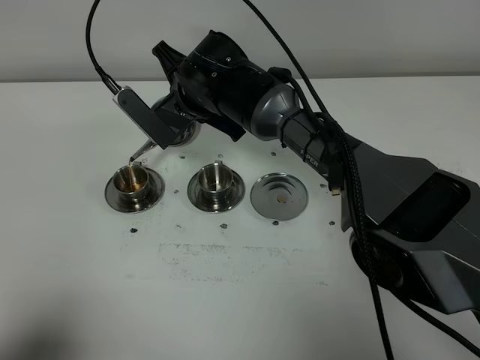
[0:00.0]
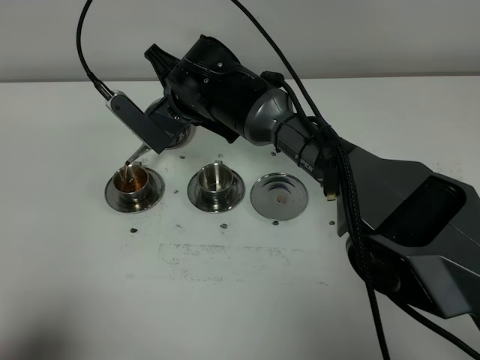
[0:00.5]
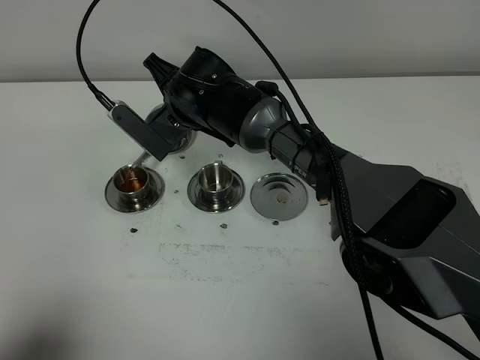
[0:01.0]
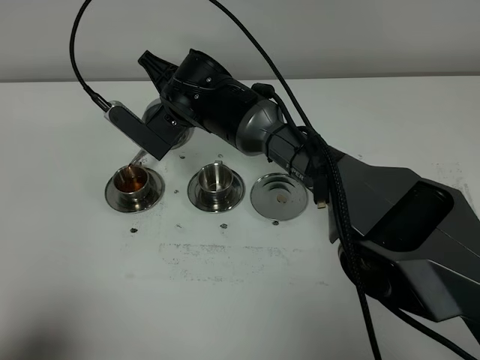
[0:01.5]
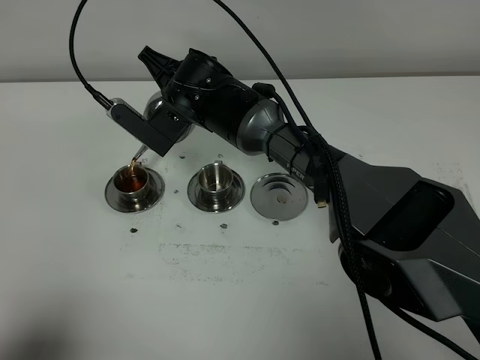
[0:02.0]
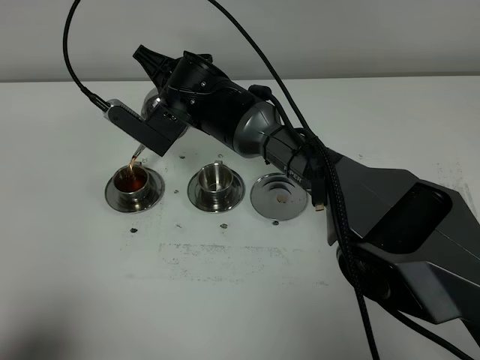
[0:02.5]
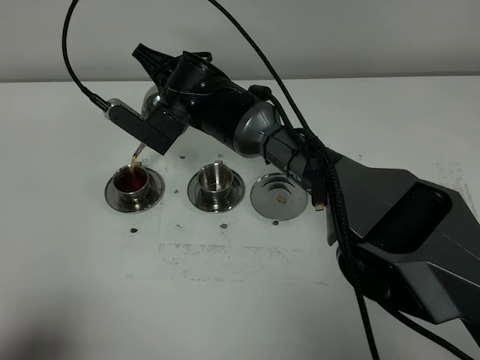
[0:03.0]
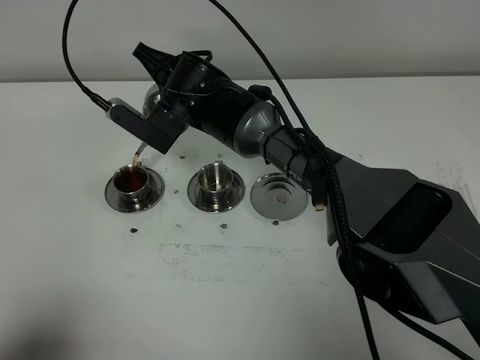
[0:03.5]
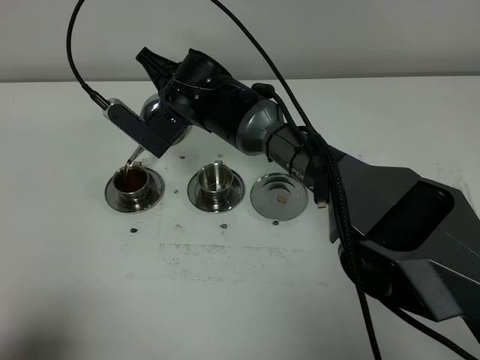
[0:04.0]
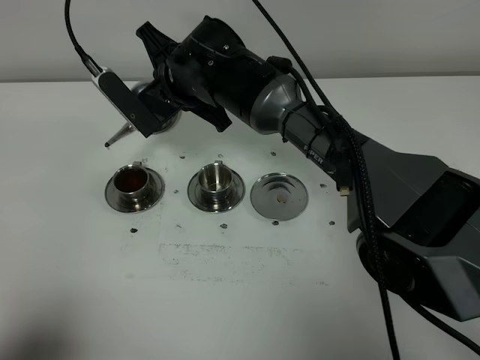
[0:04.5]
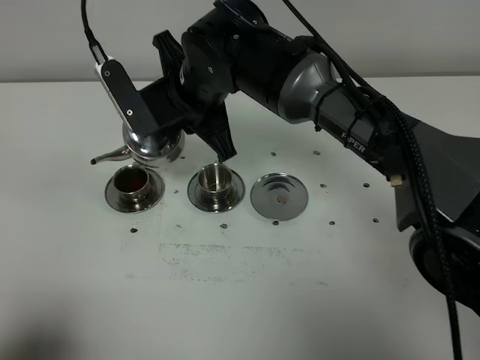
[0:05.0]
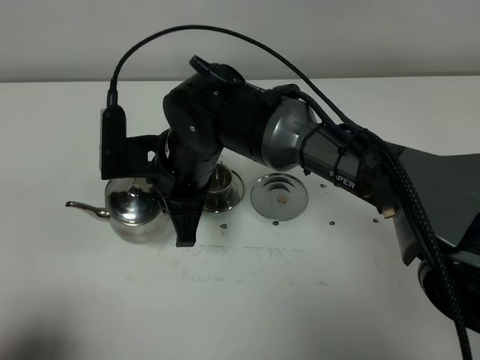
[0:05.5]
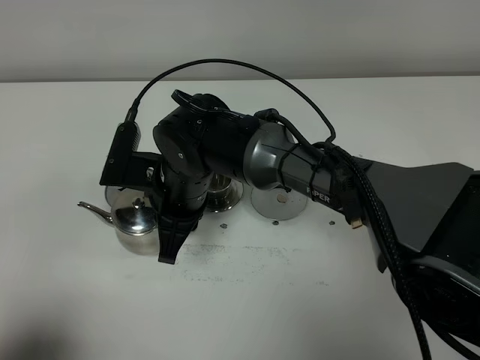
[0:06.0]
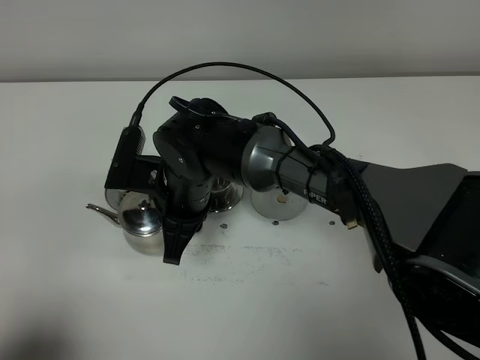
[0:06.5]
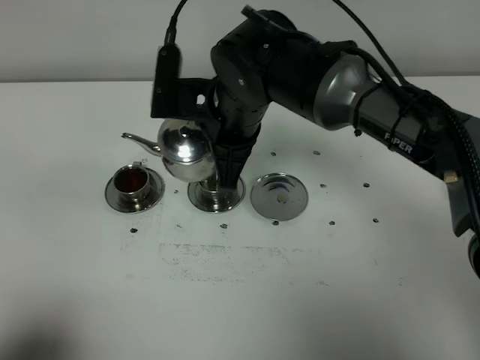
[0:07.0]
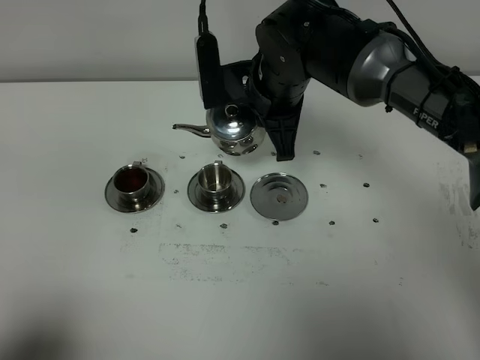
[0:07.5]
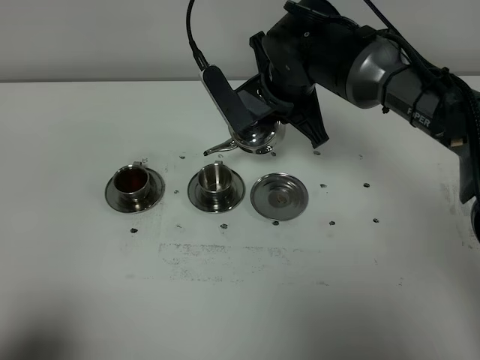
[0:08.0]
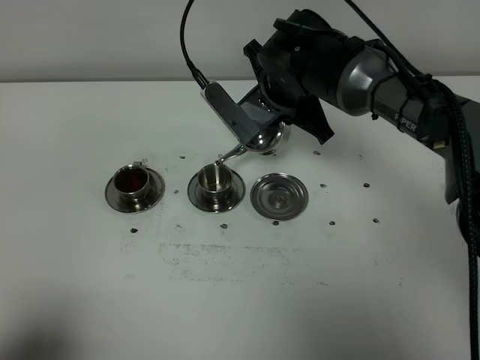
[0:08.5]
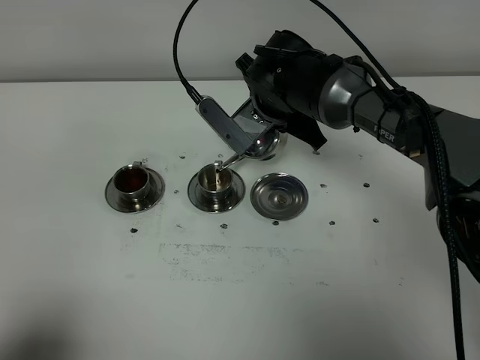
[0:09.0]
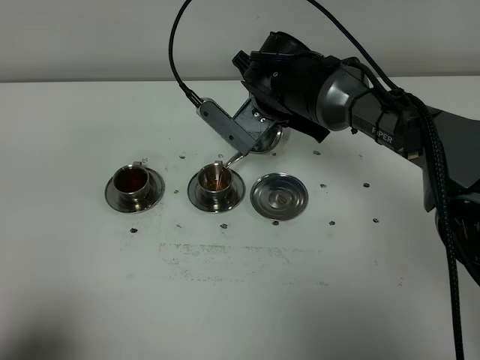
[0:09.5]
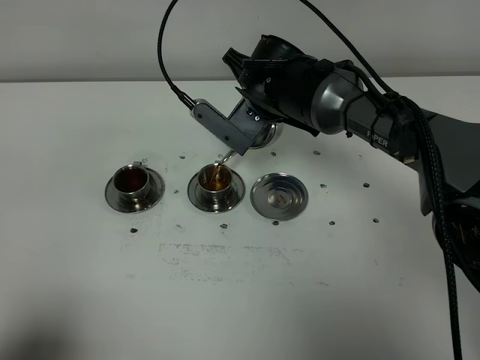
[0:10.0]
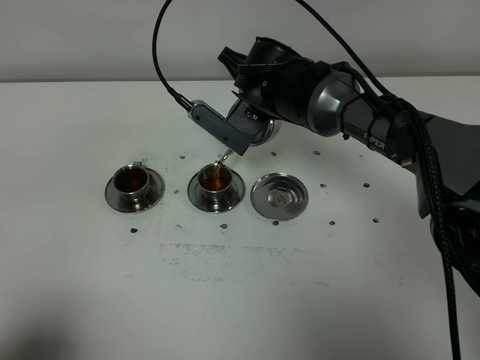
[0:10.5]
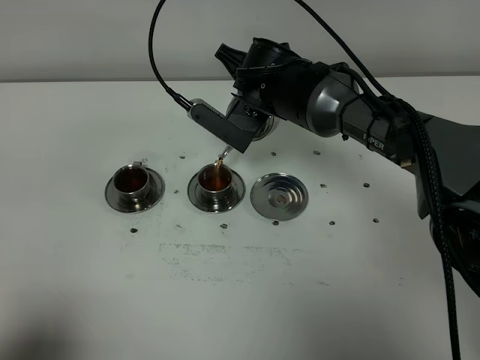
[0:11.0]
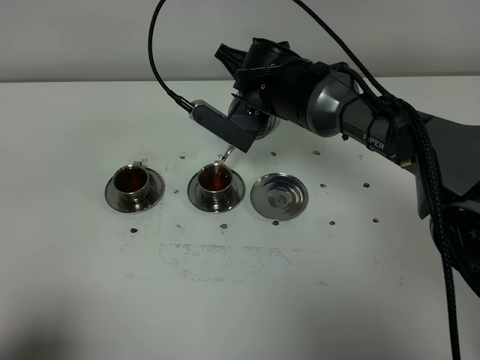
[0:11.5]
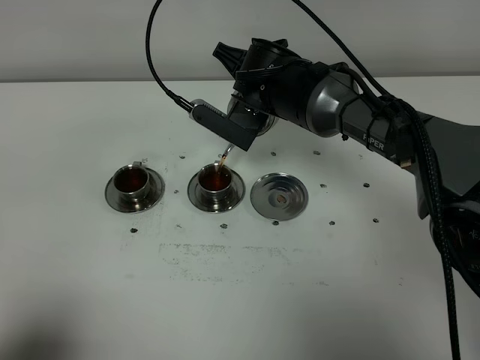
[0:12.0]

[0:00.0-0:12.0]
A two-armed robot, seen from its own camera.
Task of the whole recording: grasp the stainless steel teapot and pour the tea into the two stainless steel teacups one by one, put the stainless steel teapot back in its original place.
0:00.0 to 0:04.0: The grippers make only small movements.
0:04.0 to 0:06.0: The right gripper goes approximately 10 cm backward.
0:06.0 to 0:08.0: The right gripper heads to the right, forward and upward, covering roughly 15 cm.
0:10.0 to 0:12.0: The grippers make only small movements.

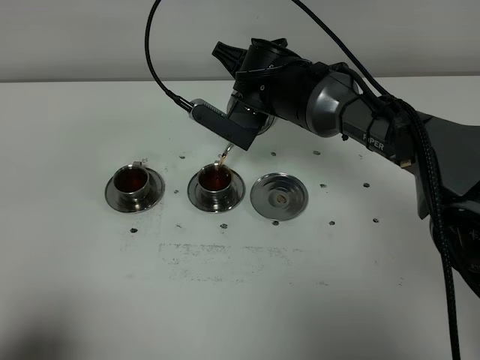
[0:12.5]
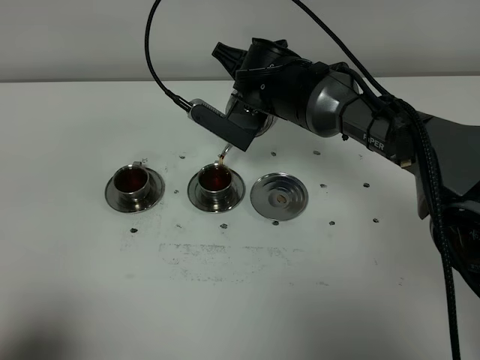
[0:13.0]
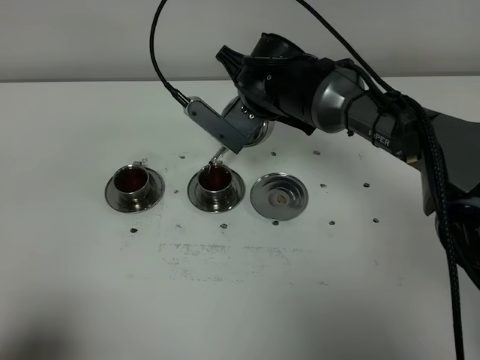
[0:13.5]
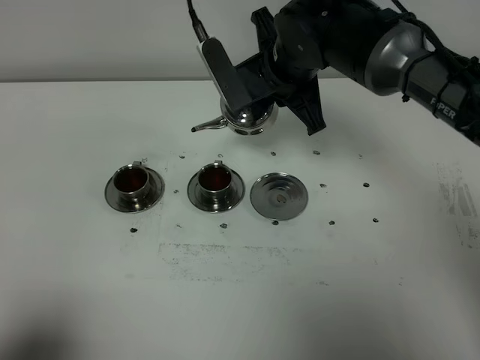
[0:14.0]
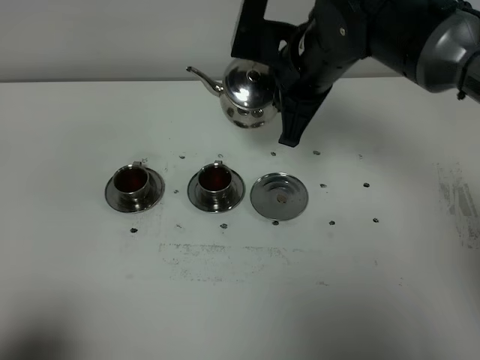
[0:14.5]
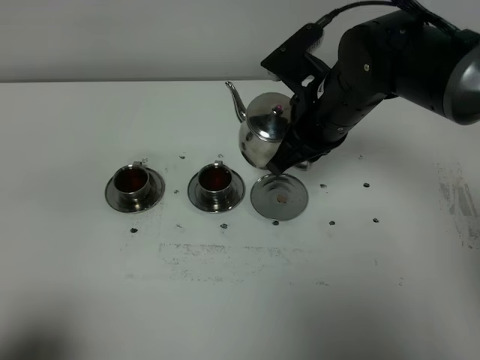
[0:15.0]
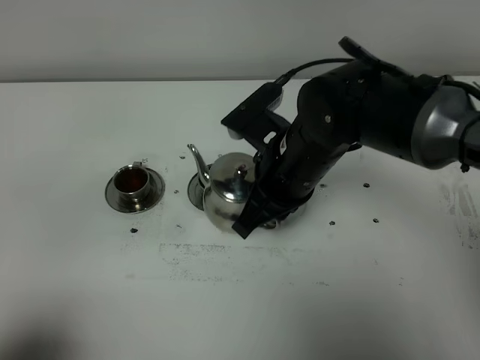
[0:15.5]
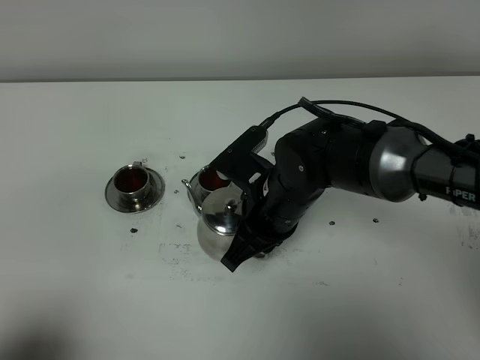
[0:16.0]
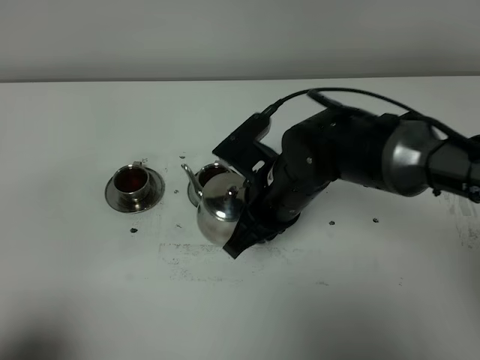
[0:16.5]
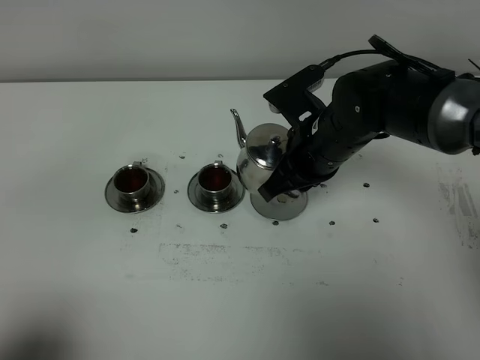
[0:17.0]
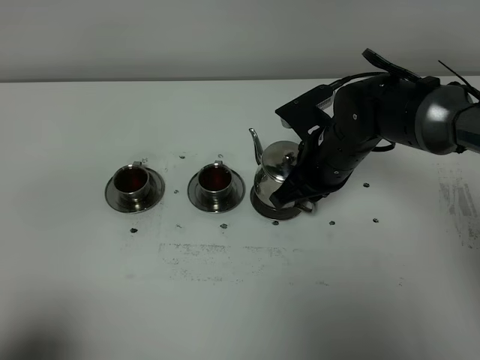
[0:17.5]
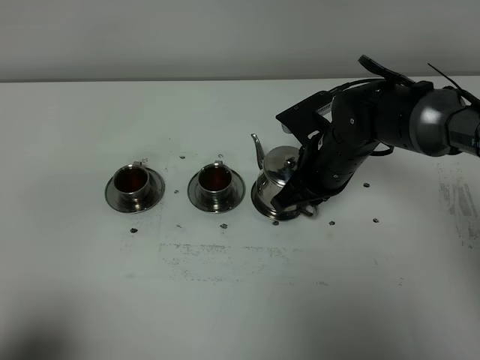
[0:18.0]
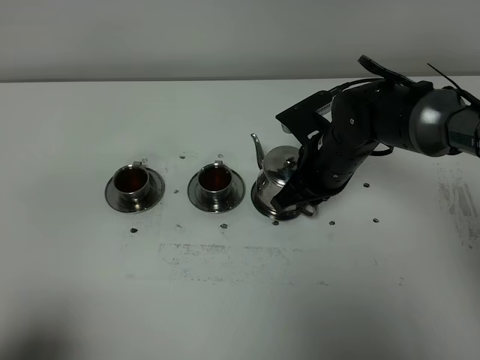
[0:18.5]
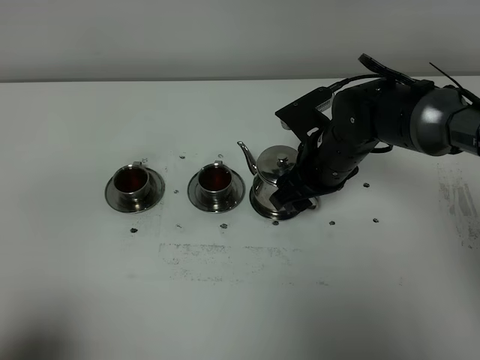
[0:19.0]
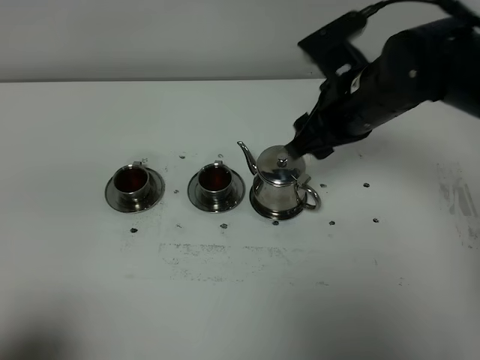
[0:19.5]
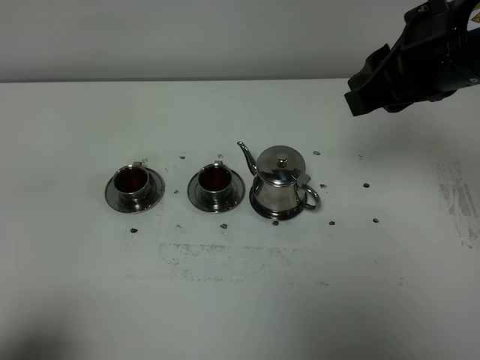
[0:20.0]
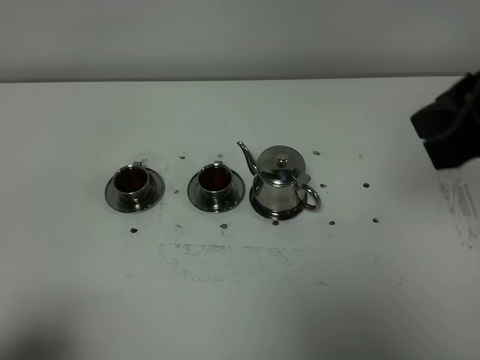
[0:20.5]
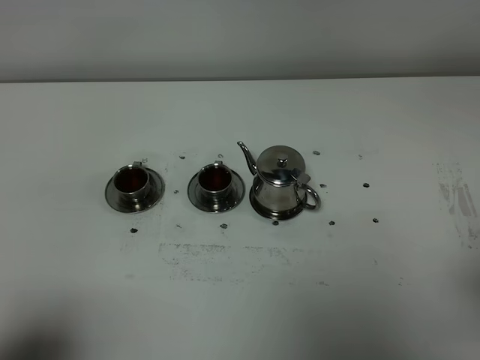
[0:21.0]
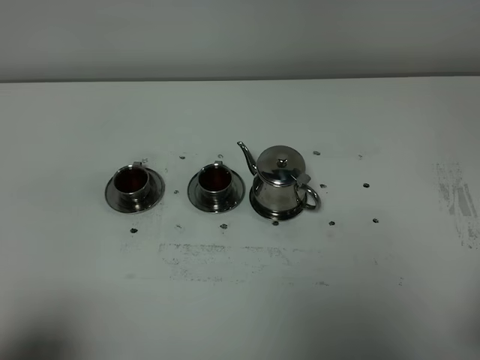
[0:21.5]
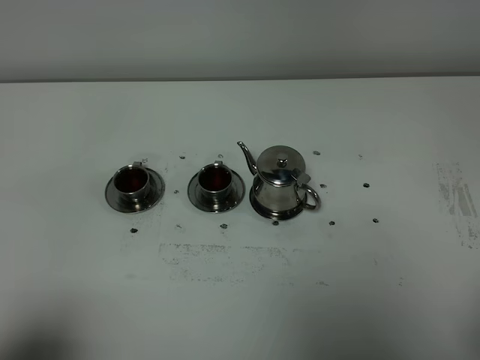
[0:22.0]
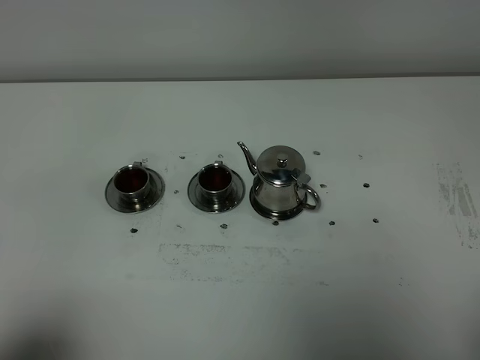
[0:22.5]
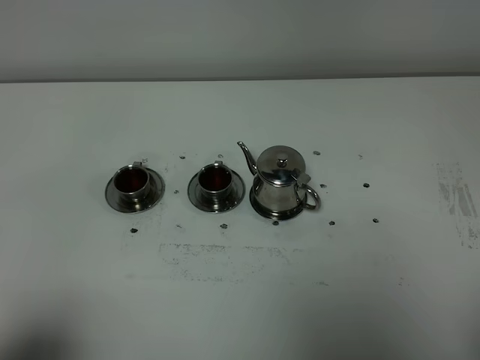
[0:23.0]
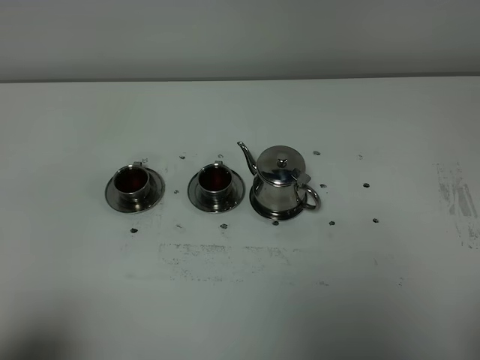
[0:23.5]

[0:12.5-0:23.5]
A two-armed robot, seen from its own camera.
Task of the whole recording: grasp the stainless steel teapot and pour the tea into the two stainless steel teacups one by one, put the stainless steel teapot back in its original place.
0:12.5 to 0:14.5: The right gripper moves upward, to the right and backward, roughly 10 cm.
0:14.5 to 0:16.0: The right gripper shifts some 15 cm downward, backward and to the left.
0:16.0 to 0:18.0: The right gripper heads to the right and forward, covering some 10 cm.
0:18.0 to 0:20.0: The right gripper travels upward and backward by about 25 cm, and opens up.
0:20.0 to 0:21.5: The right gripper shifts approximately 25 cm backward and to the right, and closes its fingers.

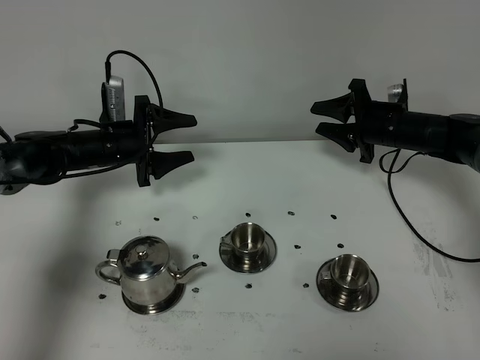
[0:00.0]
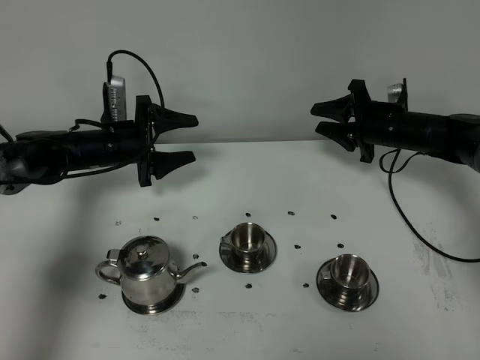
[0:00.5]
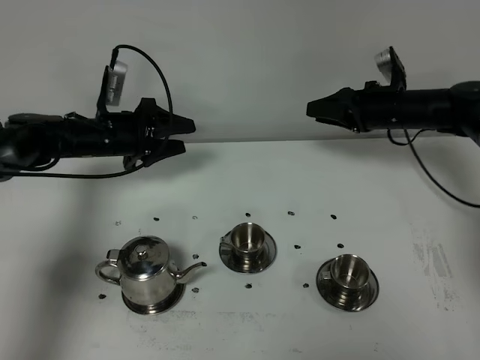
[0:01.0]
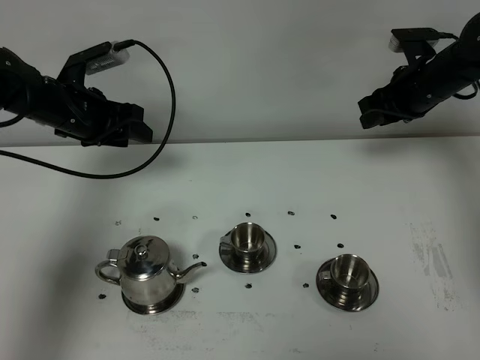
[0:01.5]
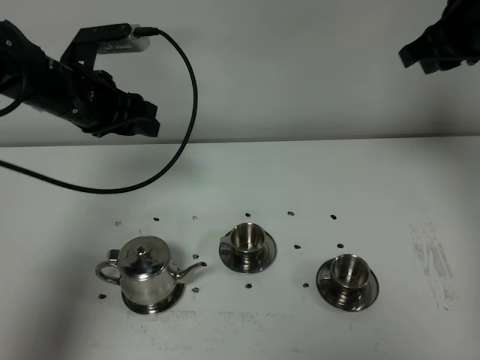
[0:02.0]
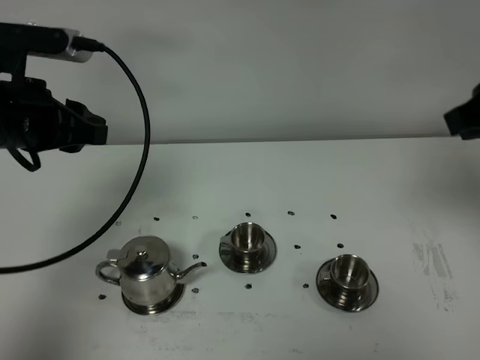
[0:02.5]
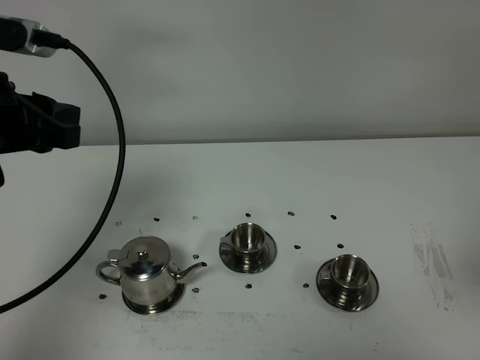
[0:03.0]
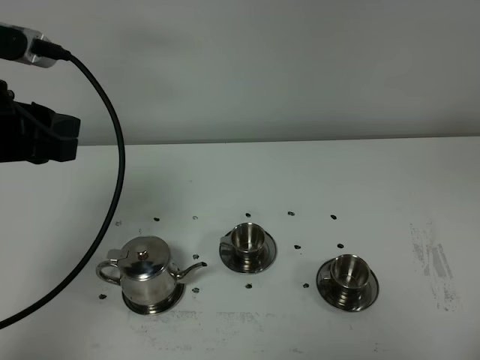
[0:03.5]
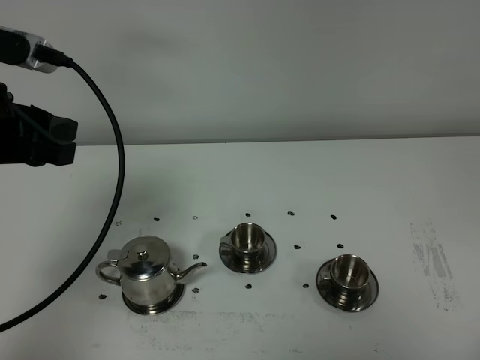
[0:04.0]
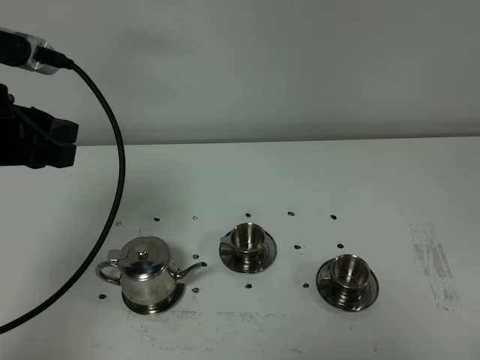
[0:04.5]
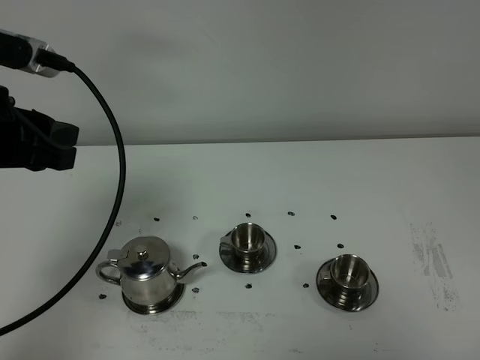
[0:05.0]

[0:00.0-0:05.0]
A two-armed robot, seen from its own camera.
Task of the whole recording: grasp the stainless steel teapot and pour the tea into the two stainless steel teacups one by one, put the stainless steel teapot back in its original place.
0:00.0 to 0:02.5: The grippers both shift upward and backward by about 30 cm. The right gripper closes up; the left gripper closes.
0:02.5 to 0:05.0: The right gripper heads backward and downward, covering roughly 30 cm; the left gripper heads backward, covering some 5 cm.
